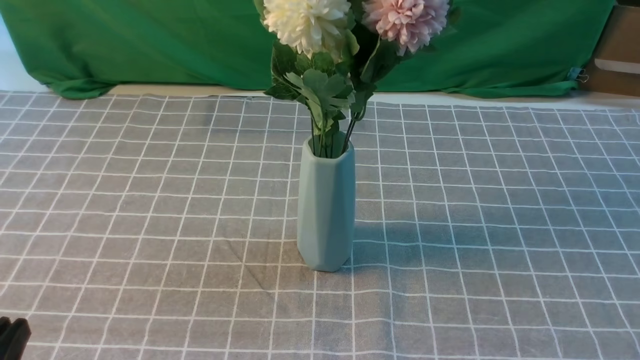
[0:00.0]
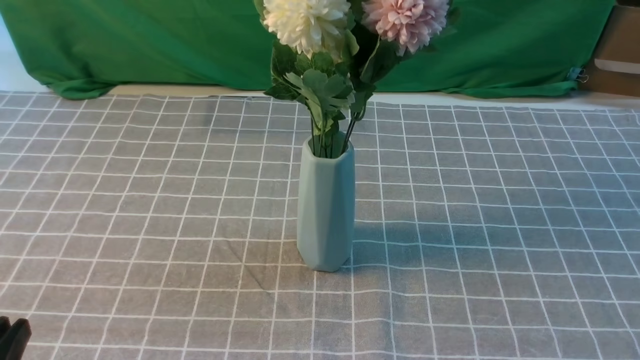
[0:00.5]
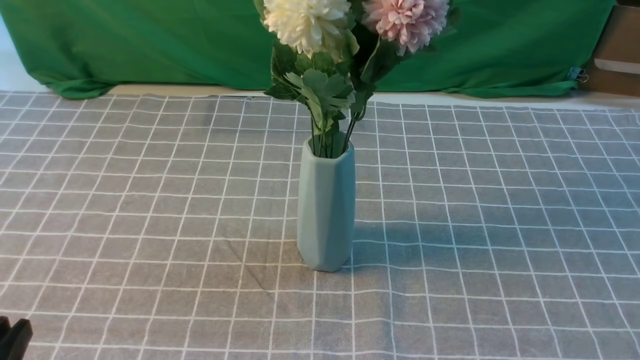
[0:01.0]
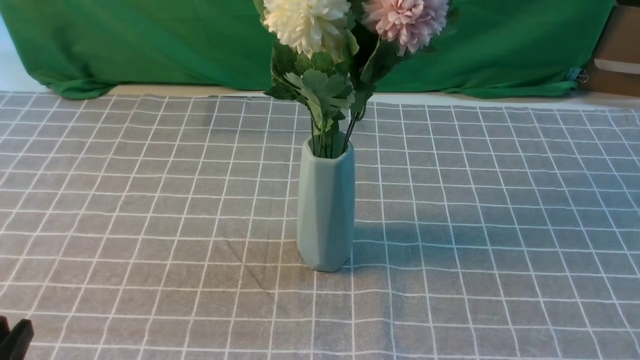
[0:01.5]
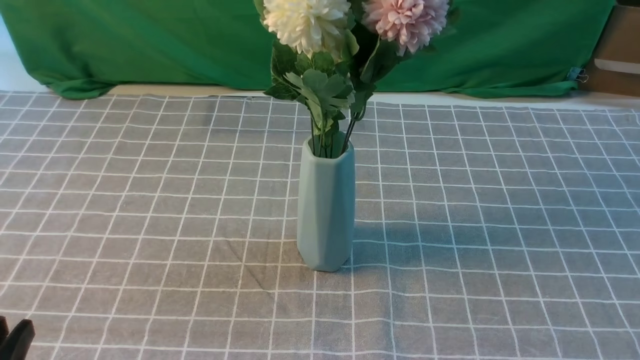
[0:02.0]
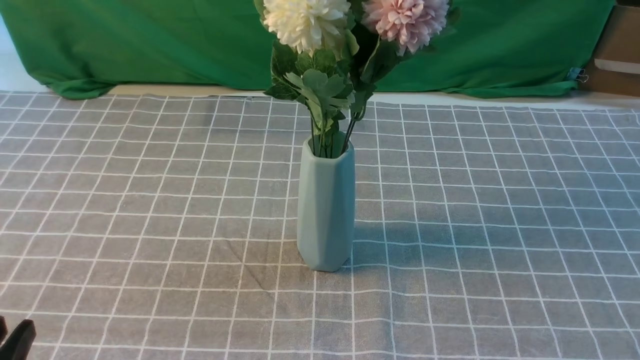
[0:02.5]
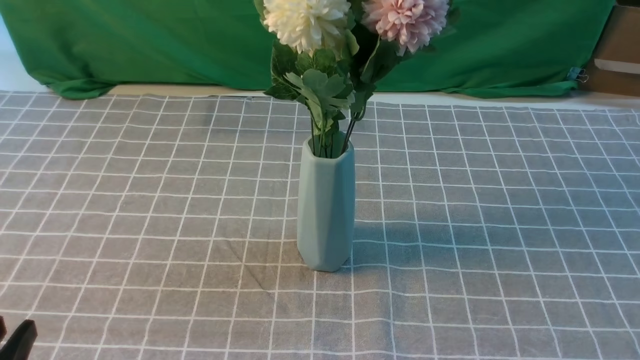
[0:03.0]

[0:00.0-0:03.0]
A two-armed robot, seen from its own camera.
Task of the whole recording: insert the flowers into the vase on the table with the grey tablecloth.
0:01.5 to 0:03.0: Neither gripper changes place.
